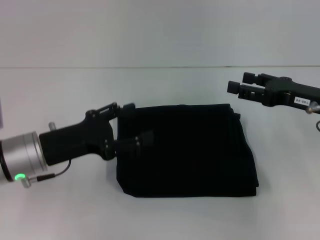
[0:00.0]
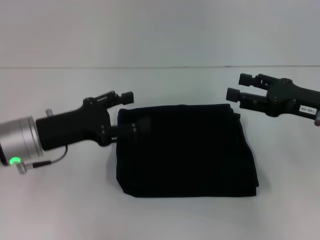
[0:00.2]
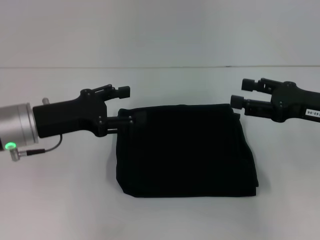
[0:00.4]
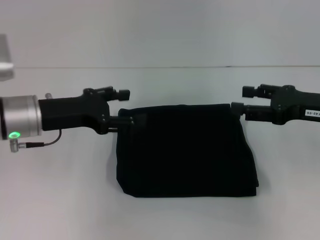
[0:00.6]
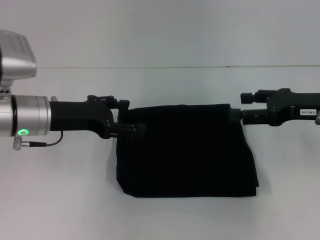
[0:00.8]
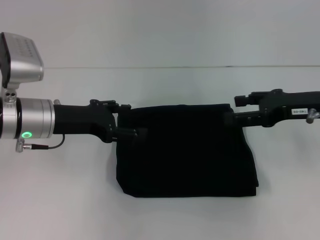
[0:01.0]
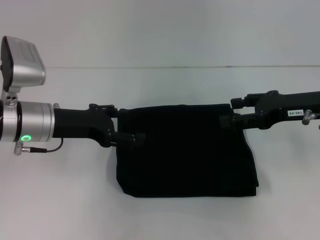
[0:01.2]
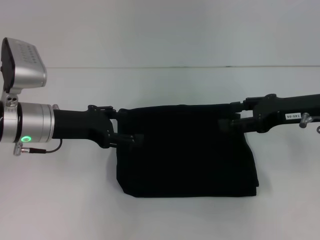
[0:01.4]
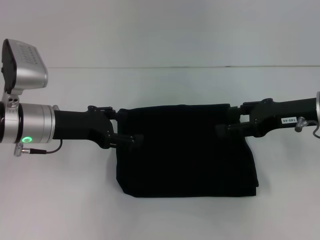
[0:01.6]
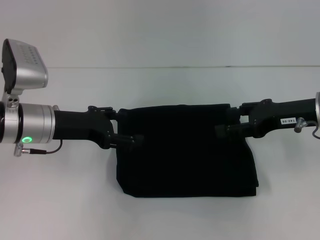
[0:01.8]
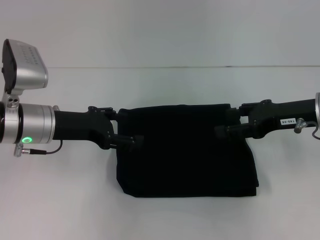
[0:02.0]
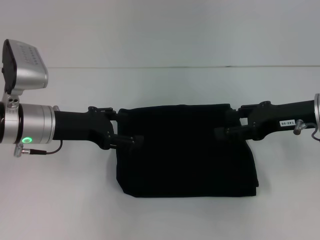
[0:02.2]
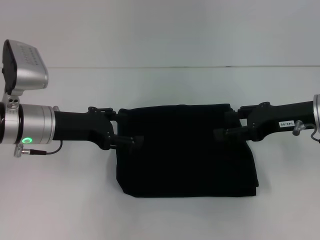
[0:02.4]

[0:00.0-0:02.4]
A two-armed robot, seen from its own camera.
0:00.0 to 0:01.2: The left gripper goes approximately 5 cm forward.
0:01.2 to 0:02.4: There are only small adjustments of the grippers.

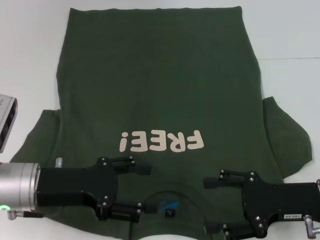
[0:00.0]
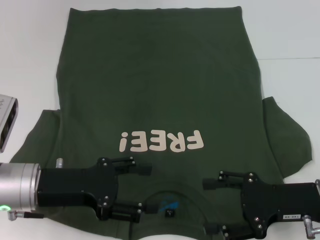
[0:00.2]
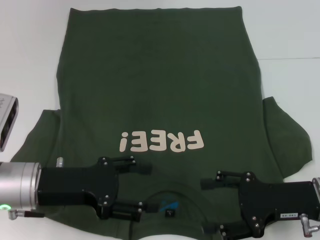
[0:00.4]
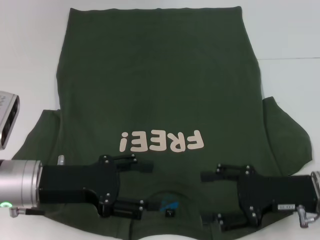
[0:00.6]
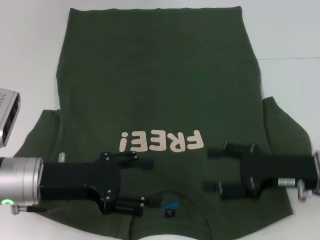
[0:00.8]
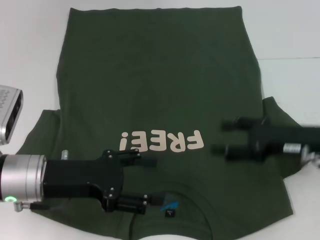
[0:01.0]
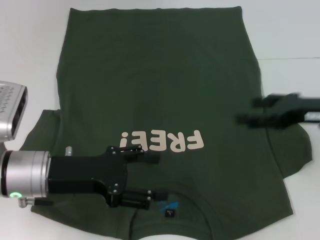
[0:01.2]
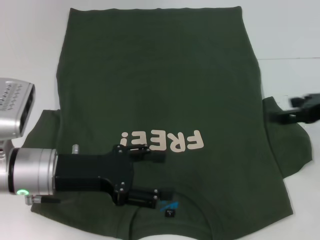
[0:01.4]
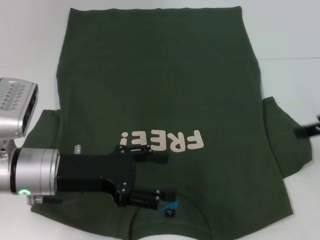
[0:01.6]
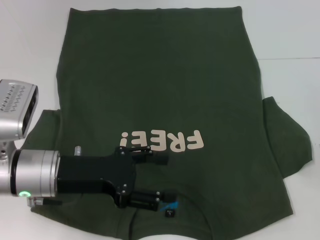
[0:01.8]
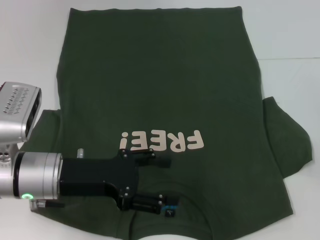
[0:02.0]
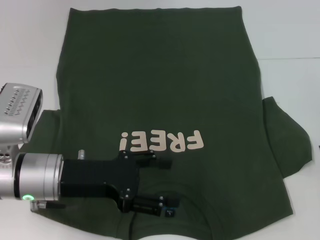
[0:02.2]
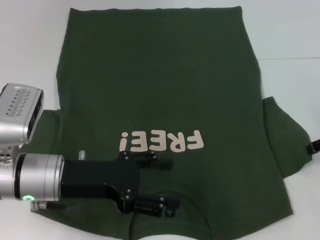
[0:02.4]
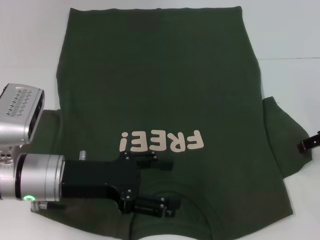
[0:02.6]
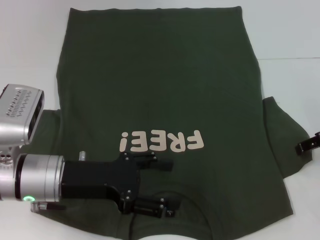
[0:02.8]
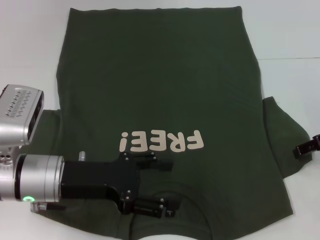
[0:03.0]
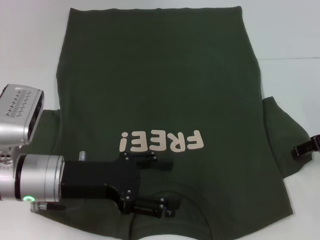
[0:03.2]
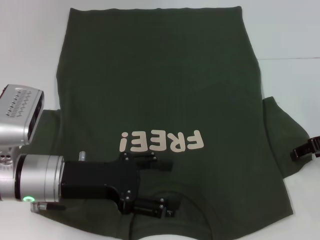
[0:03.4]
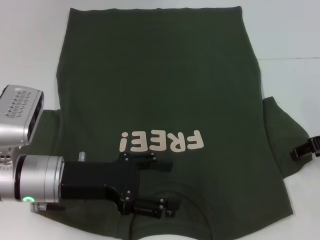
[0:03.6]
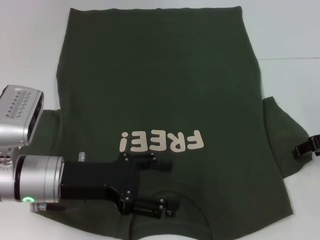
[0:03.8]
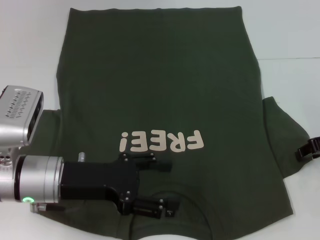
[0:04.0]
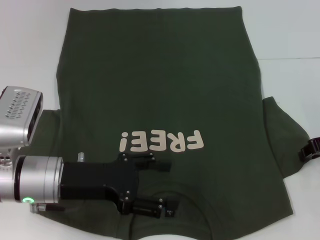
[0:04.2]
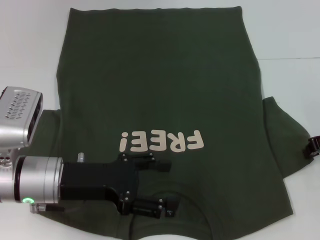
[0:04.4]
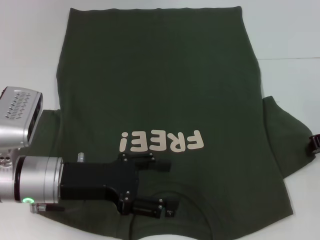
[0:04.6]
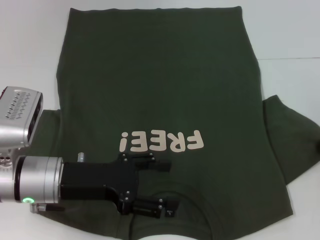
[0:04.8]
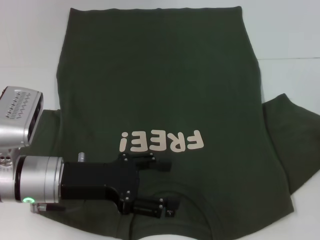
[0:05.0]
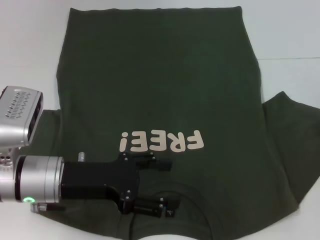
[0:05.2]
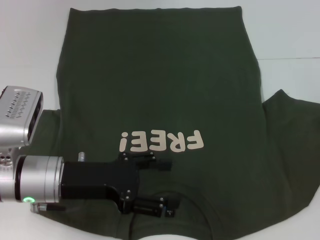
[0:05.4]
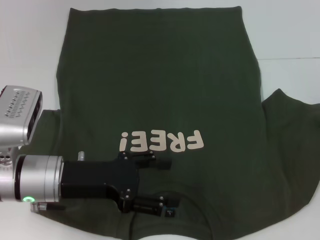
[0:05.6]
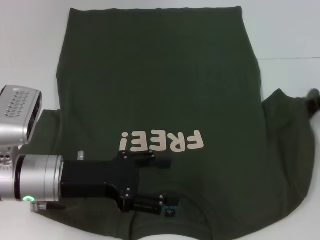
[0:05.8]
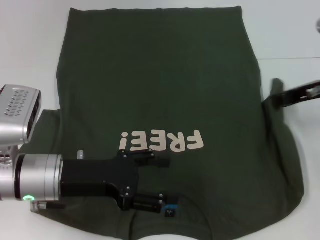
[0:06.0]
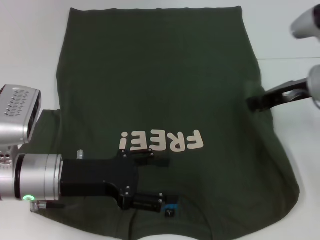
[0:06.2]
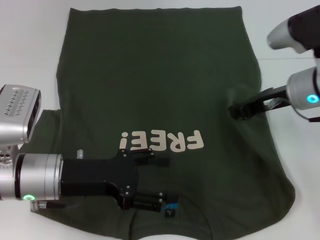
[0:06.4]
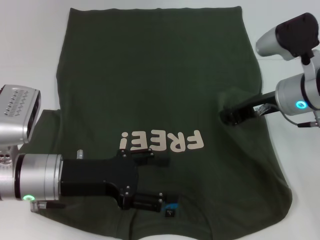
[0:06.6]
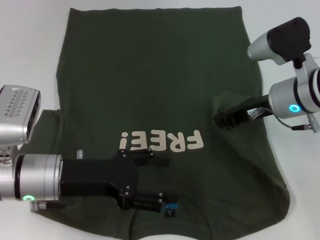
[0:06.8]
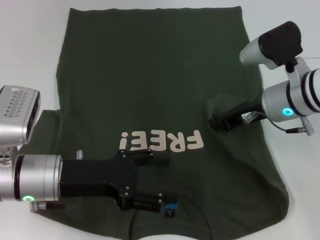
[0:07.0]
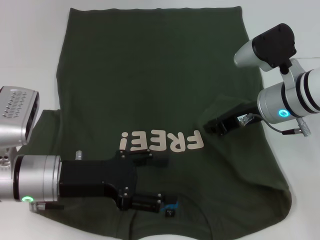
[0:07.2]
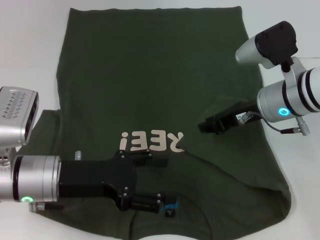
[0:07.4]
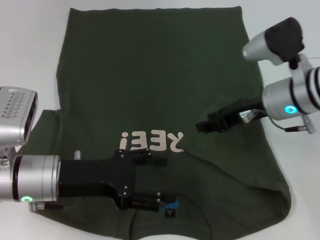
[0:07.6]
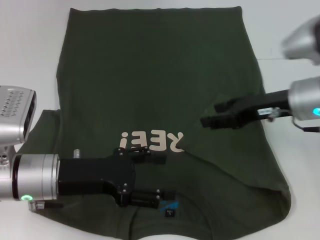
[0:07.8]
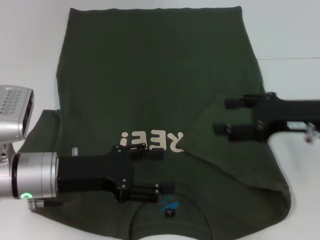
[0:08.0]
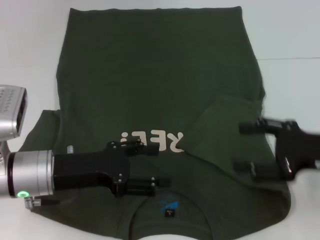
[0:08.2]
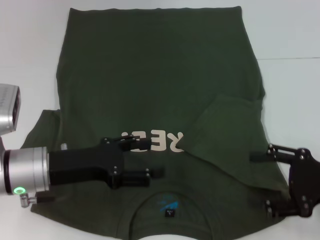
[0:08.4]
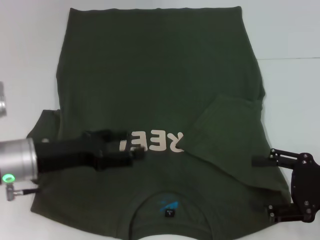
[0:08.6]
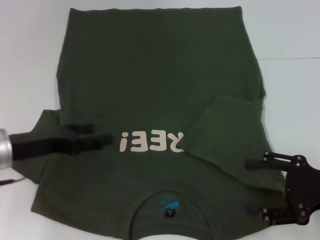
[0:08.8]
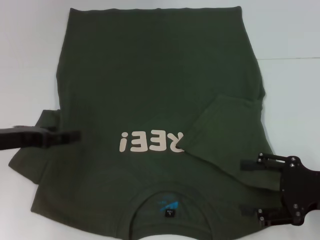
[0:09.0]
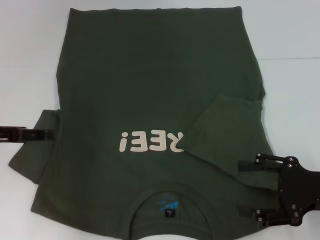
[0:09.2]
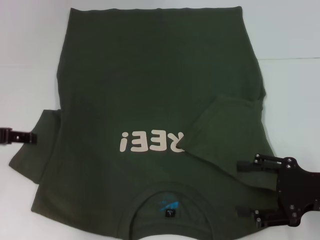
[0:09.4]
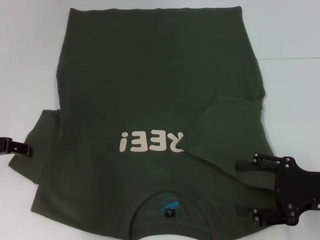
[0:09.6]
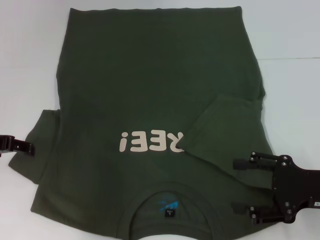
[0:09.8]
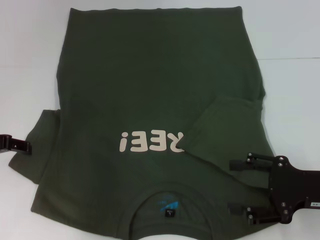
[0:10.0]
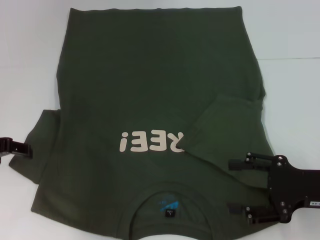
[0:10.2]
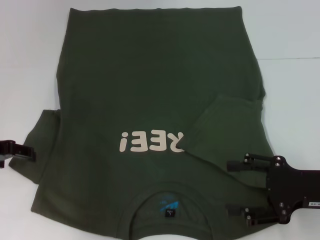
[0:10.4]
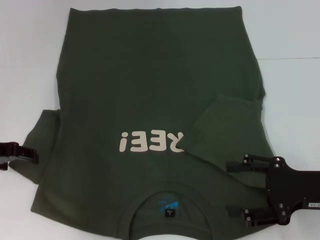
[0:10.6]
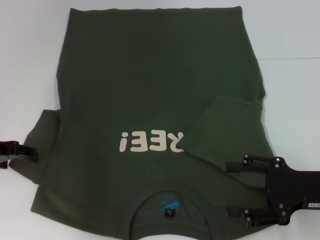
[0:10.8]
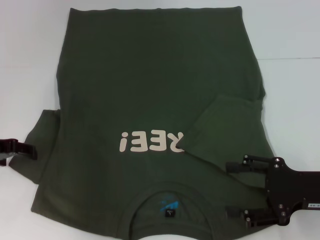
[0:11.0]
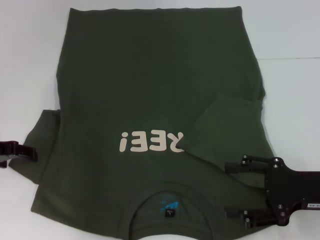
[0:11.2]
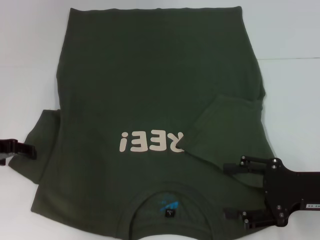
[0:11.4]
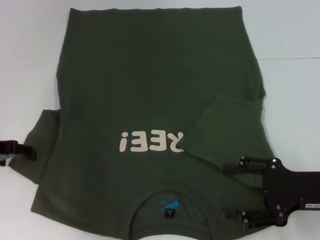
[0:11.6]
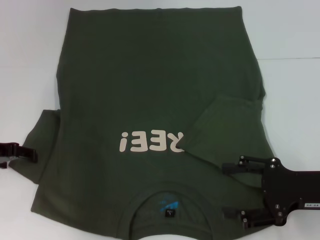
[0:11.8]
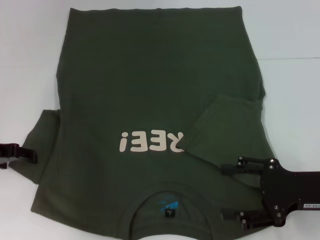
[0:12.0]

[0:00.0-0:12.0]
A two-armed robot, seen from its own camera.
Step, 0:00.0 to 0:07.4: Fold the bottom right sleeve with your right hand.
0:00.0 to 0:01.6: The right gripper is displaced upward, to the right and forward by some 15 cm.
0:01.6 to 0:03.0: The right gripper heads downward, covering roughly 5 cm.
0:04.4 to 0:06.0: The right gripper shifts by approximately 5 cm.
0:06.0 to 0:07.6: The right gripper heads to the left, covering some 10 cm, and opens up.
0:07.6 to 0:09.0: The right gripper shifts about 15 cm backward and to the right, and opens up; the left gripper shifts some 10 cm to the left.
0:10.4 to 0:12.0: The grippers stay close to where they were, moving slightly.

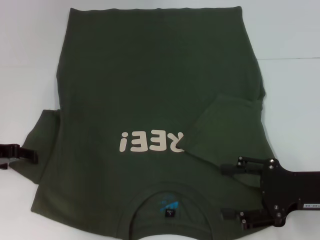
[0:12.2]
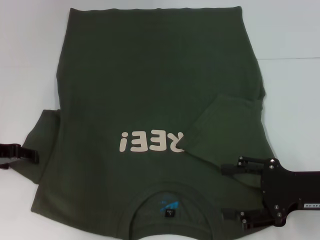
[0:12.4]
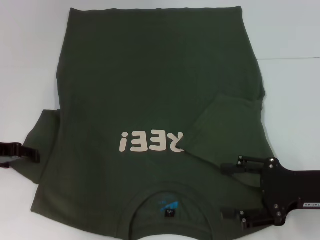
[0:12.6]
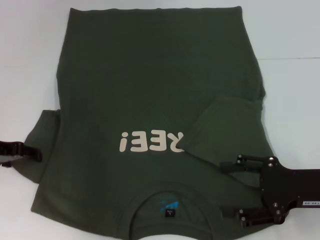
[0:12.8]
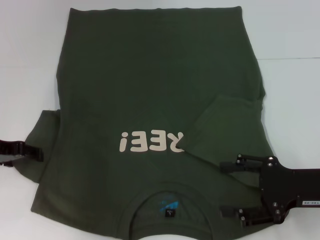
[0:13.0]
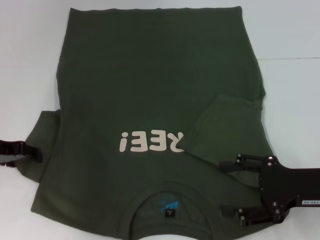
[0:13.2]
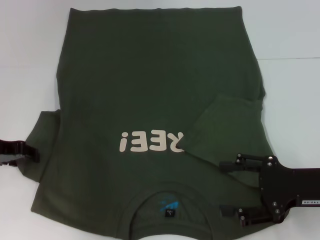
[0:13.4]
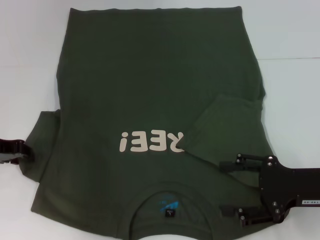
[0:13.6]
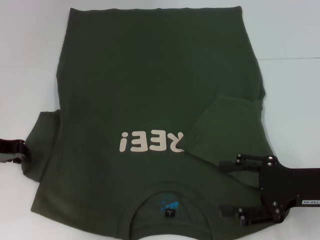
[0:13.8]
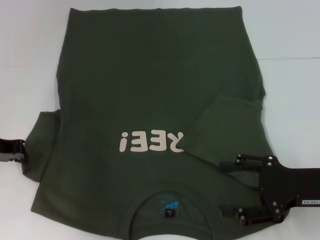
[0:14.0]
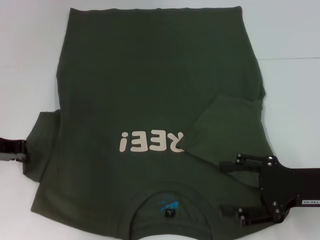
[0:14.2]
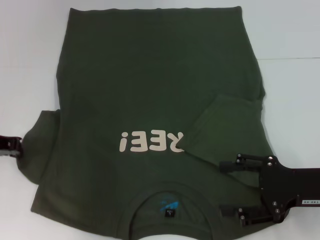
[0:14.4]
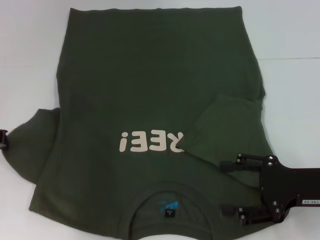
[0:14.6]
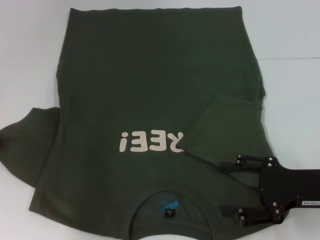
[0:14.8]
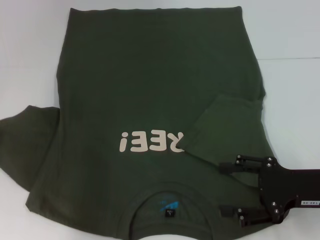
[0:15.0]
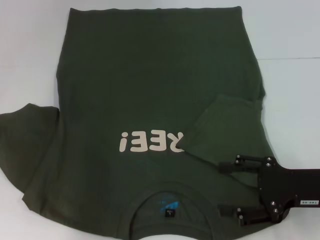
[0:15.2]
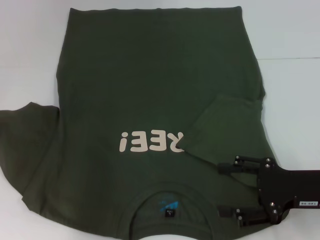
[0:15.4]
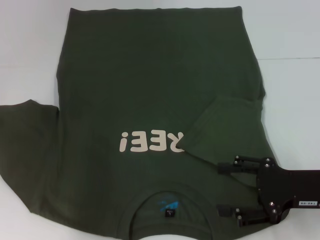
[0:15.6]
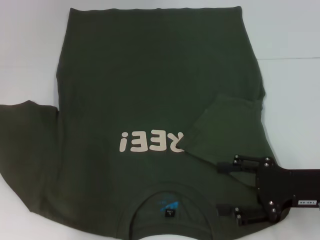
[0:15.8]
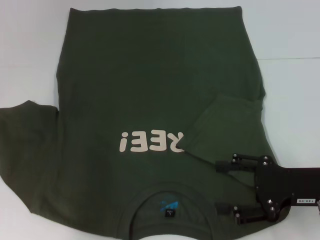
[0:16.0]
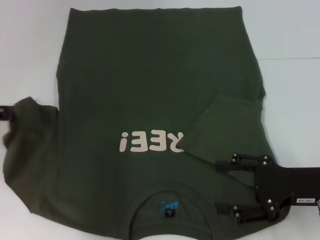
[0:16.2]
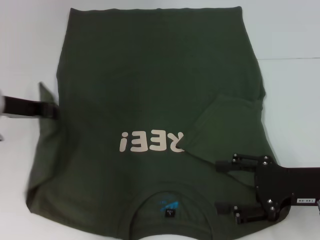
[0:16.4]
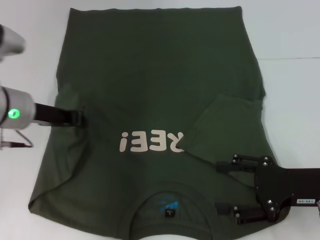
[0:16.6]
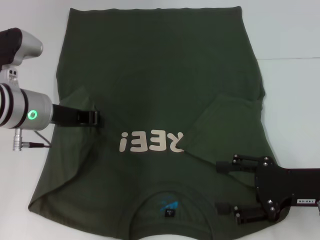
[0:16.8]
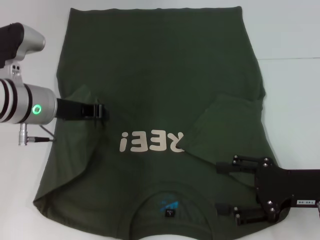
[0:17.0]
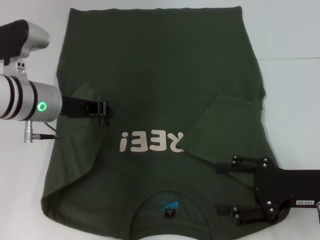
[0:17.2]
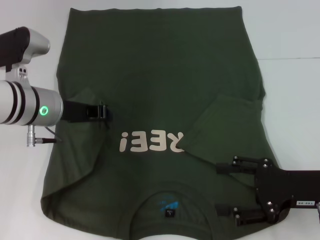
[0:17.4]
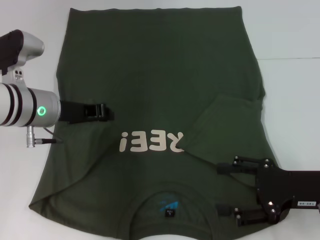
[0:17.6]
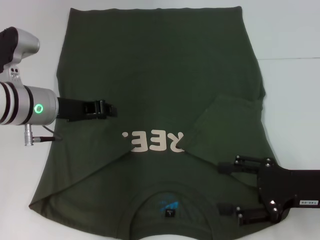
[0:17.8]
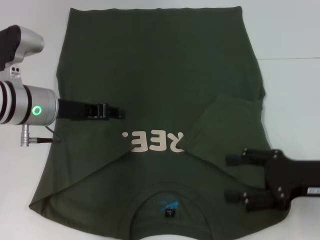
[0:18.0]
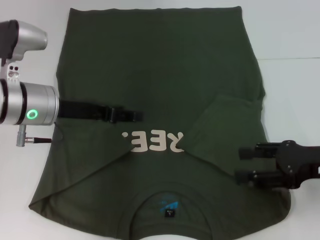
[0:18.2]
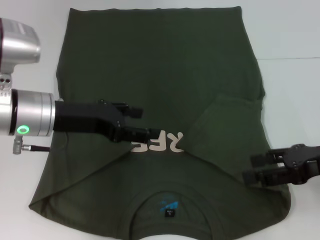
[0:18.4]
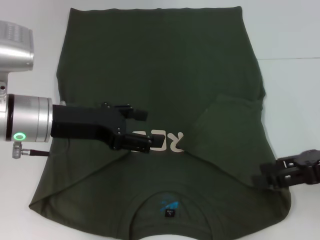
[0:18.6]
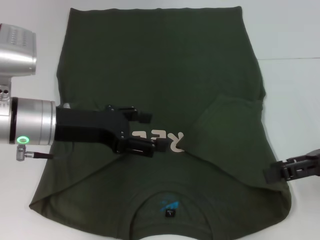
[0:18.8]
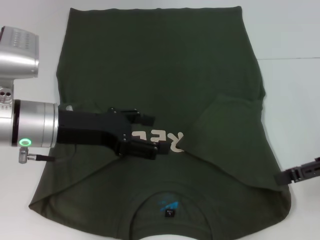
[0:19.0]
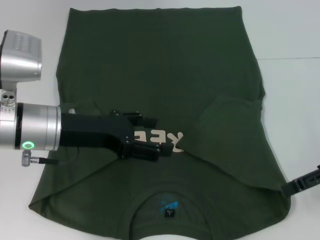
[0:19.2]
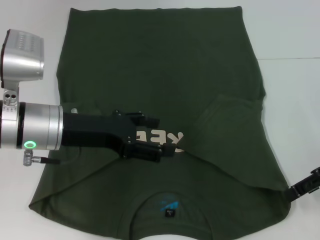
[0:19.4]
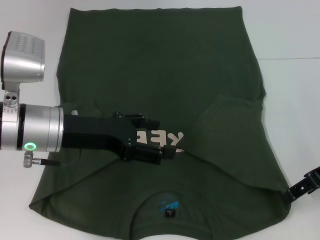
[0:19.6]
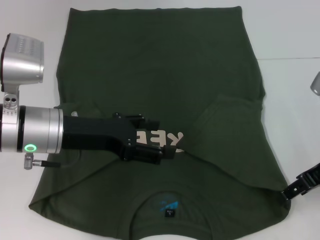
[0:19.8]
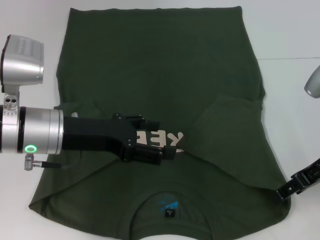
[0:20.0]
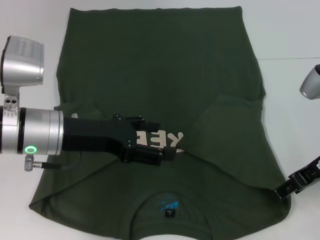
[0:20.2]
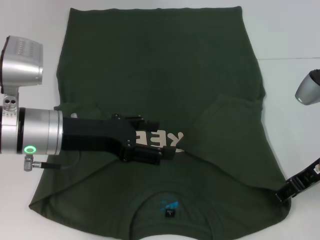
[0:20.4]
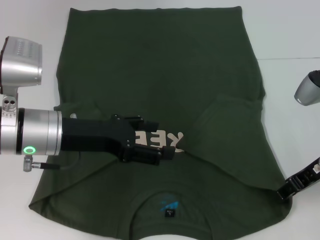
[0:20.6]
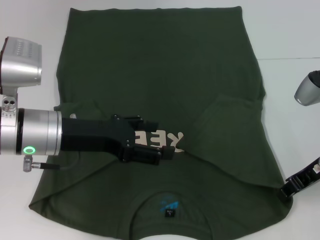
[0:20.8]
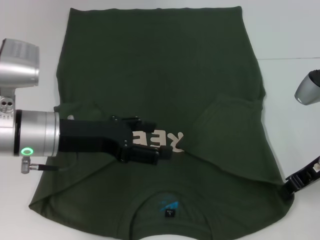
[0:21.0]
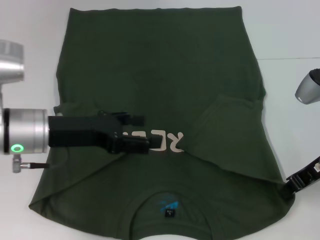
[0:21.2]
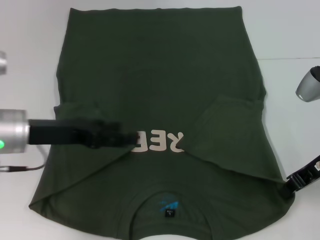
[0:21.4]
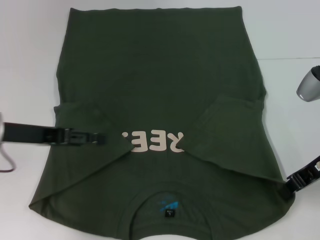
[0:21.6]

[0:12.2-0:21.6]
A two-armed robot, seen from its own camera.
Step, 0:12.2 to 0:18.0: Fold the bottom left sleeve with your left hand.
Step, 0:18.2 to 0:21.0: Grab the bottom right corner with your right hand.
0:12.2 to 0:13.8: The left gripper closes.
0:13.8 to 0:15.4: The left gripper closes.
0:15.4 to 0:17.0: The left gripper travels to the right by about 15 cm.
0:17.0 to 0:18.4: The left gripper opens up, while the right gripper is displaced upward by some 5 cm.
0:18.4 to 0:20.0: The left gripper opens its fingers. The right gripper ends up about 5 cm from where it was.
0:20.0 to 0:21.6: The right gripper closes, while the left gripper is displaced to the left by roughly 5 cm.
